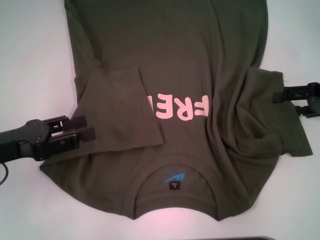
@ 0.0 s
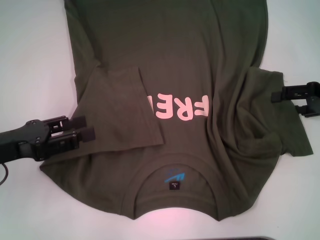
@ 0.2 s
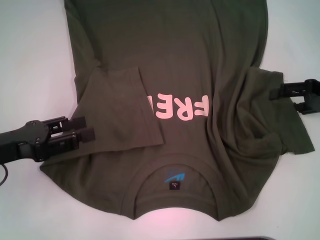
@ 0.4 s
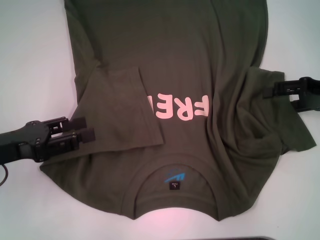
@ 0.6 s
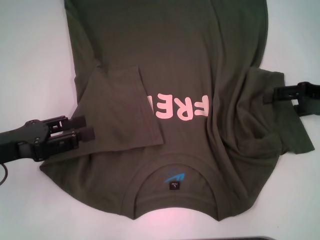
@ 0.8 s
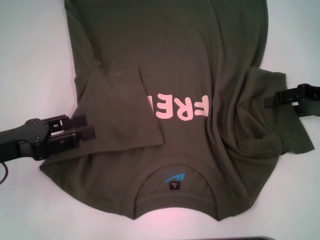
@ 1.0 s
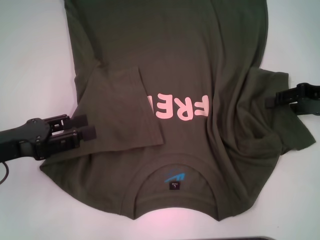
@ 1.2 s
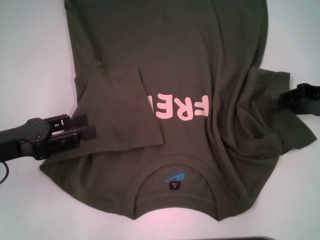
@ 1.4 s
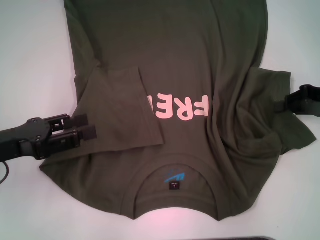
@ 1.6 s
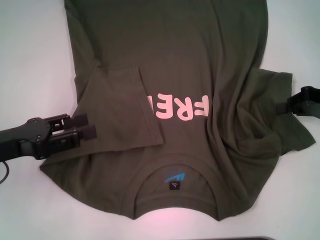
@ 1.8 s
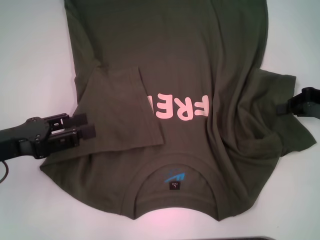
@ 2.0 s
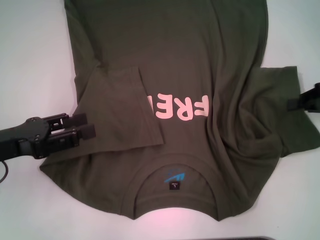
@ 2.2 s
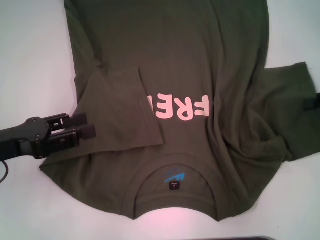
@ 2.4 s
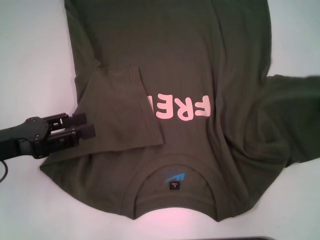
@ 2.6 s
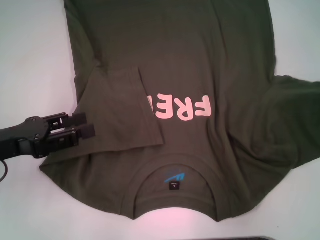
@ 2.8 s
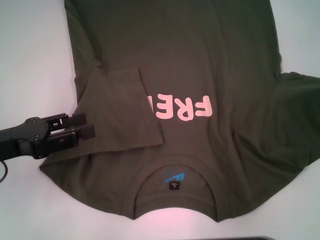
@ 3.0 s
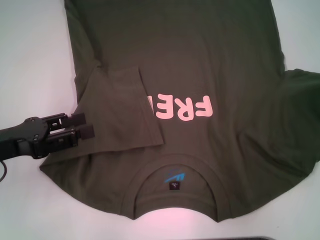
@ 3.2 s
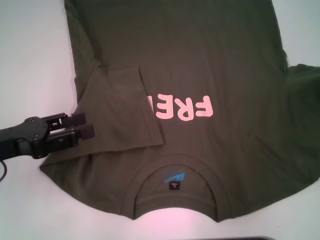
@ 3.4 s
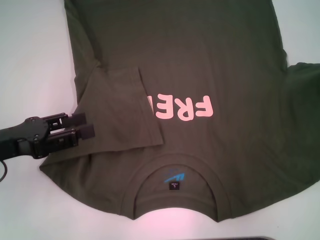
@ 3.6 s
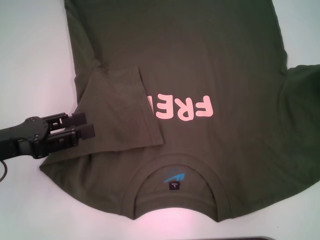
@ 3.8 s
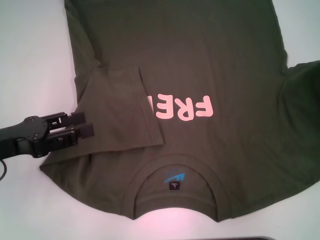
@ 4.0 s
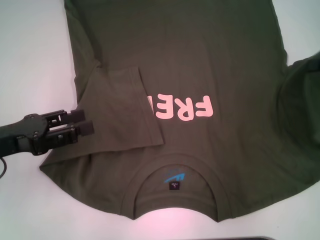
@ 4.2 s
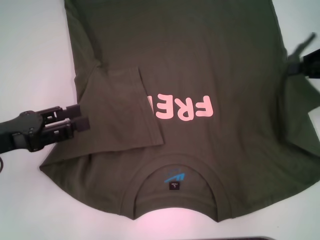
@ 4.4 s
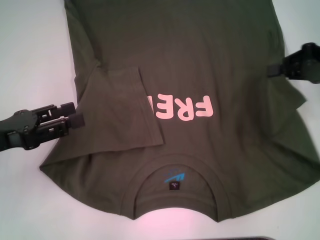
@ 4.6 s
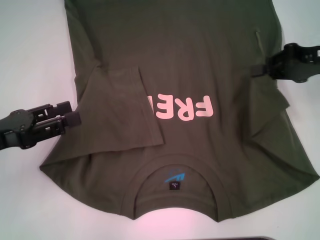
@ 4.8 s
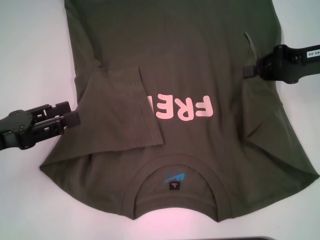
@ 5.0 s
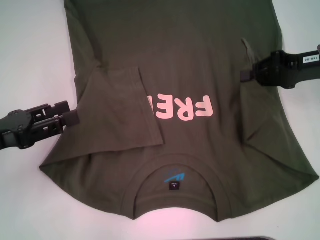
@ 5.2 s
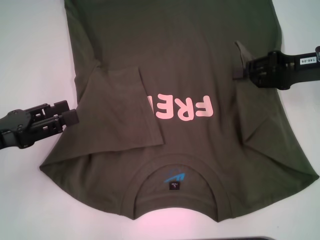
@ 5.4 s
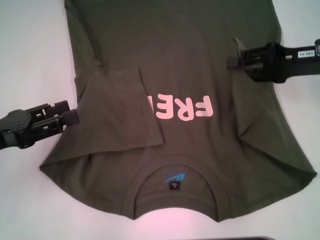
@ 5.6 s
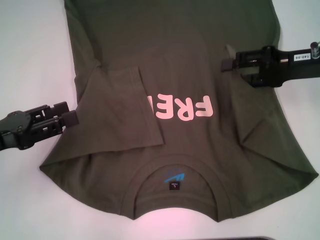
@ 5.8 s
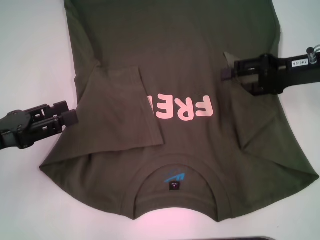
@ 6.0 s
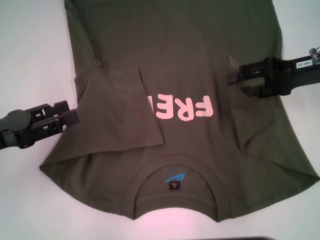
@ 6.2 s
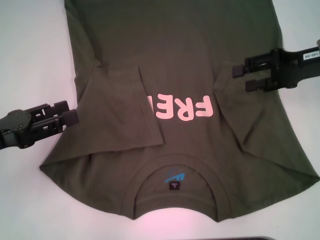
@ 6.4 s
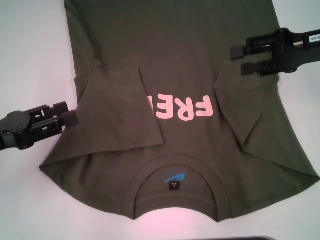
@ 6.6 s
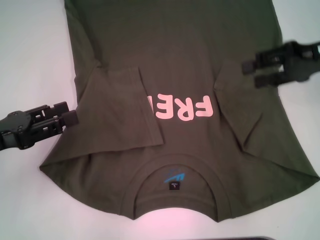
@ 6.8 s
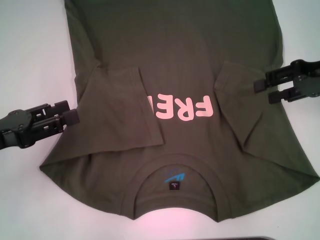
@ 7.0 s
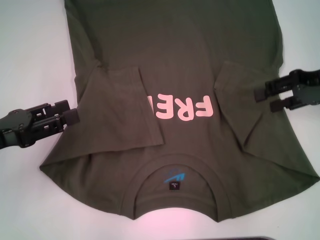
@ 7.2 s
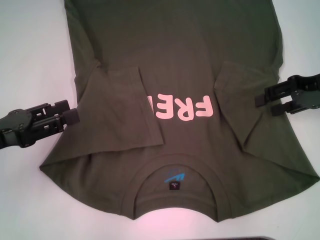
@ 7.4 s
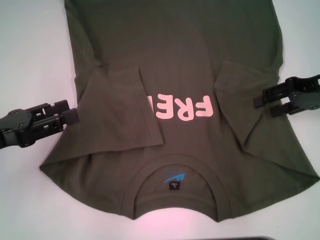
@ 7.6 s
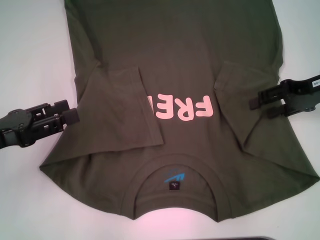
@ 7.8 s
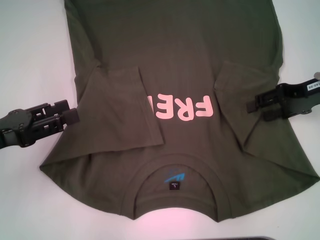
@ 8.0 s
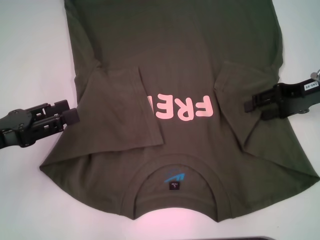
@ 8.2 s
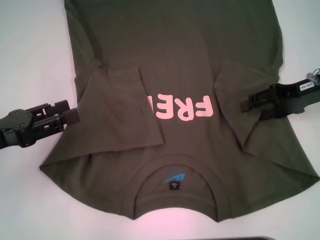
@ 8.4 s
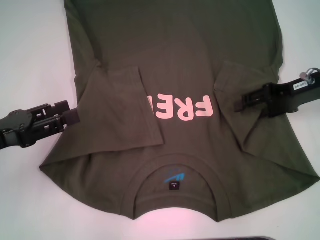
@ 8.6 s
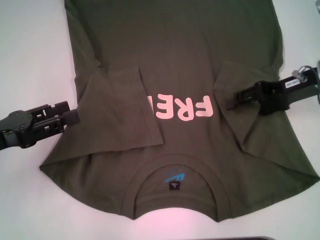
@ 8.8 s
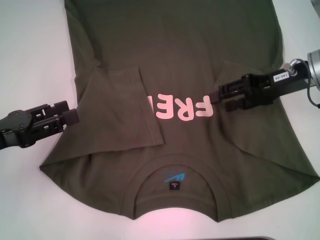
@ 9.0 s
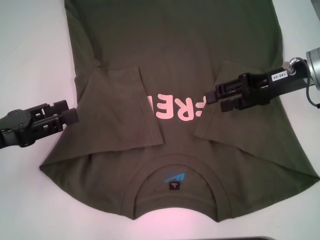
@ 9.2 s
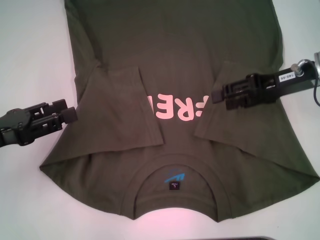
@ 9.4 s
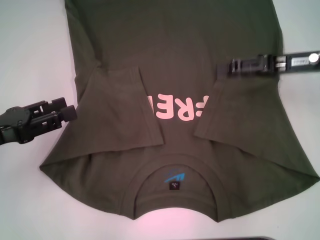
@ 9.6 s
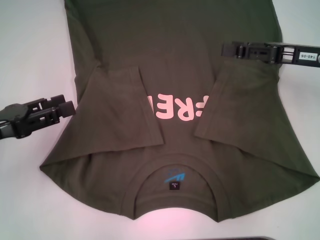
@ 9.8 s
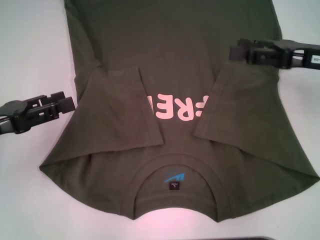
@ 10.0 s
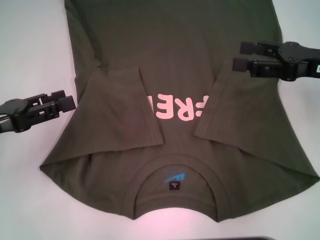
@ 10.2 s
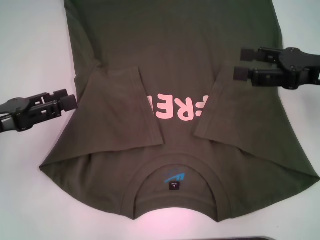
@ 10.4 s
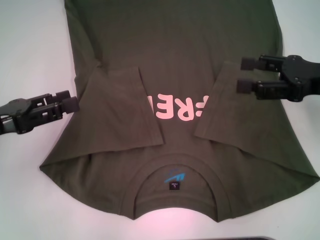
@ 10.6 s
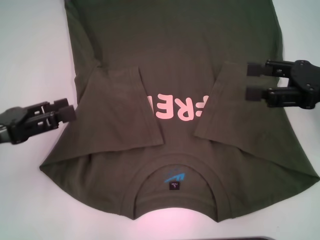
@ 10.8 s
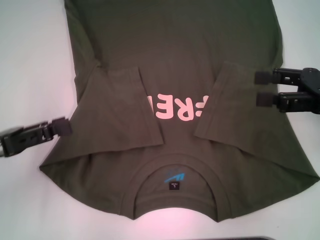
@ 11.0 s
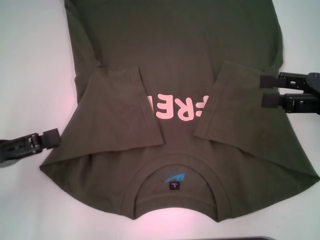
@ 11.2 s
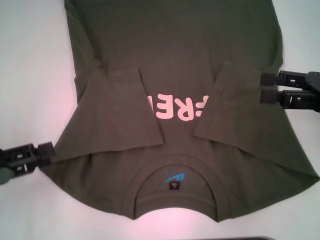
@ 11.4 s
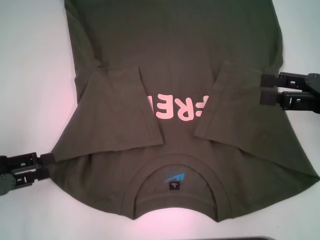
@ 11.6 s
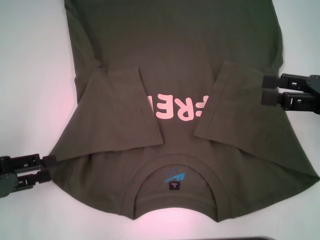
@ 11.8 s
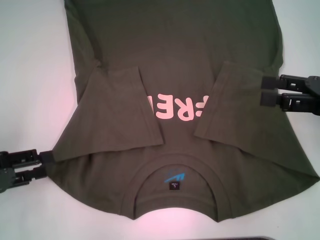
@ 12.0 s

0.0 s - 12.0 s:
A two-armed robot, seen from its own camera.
Step, 0.0 s - 9.4 s: Fold the bottom right sleeve with your right hand.
0.0 s - 1.6 s: The right gripper closes up.
1.6 s - 3.0 s: The right gripper goes approximately 10 cm to the right.
3.0 s - 4.4 s: The right gripper travels to the left by approximately 5 cm.
4.4 s - 6.0 s: The right gripper heads to the left, covering roughly 5 cm, and opens up.
6.0 s - 7.6 s: There are only small adjustments of the grippers.
7.6 s - 9.0 s: The right gripper moves to the left, approximately 5 cm.
9.0 s - 10.4 s: The right gripper is displaced backward by approximately 5 cm.
10.4 s - 12.0 s: The left gripper ends up about 5 cm from where it was.

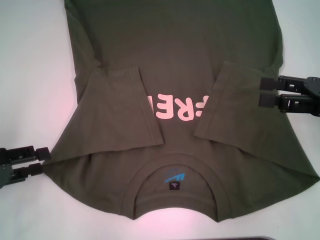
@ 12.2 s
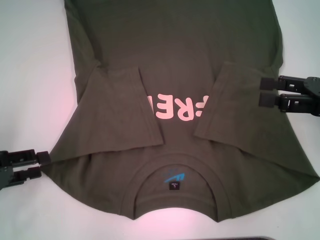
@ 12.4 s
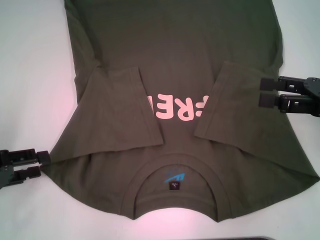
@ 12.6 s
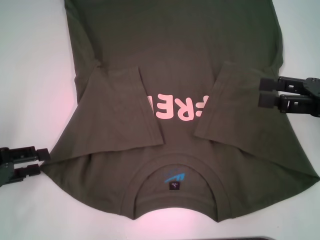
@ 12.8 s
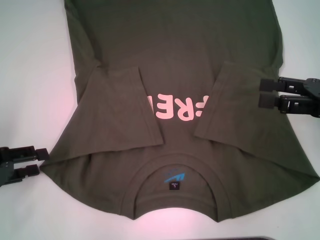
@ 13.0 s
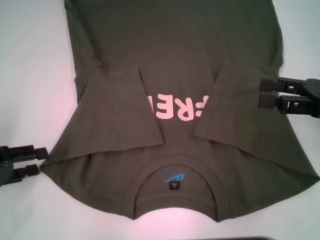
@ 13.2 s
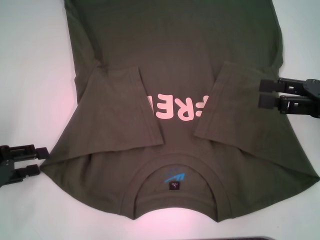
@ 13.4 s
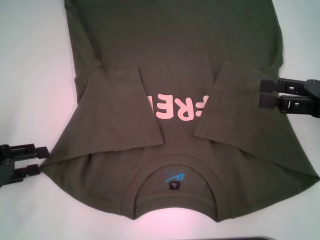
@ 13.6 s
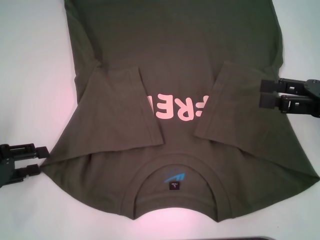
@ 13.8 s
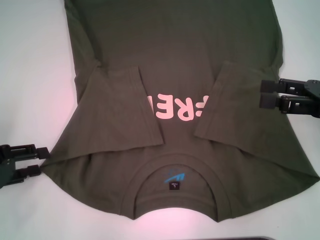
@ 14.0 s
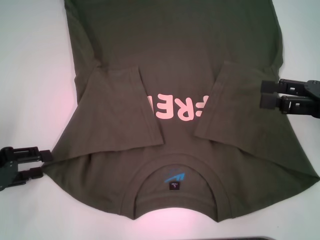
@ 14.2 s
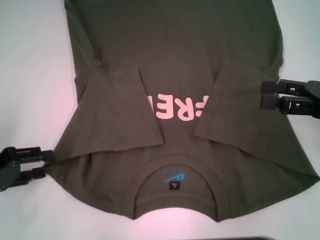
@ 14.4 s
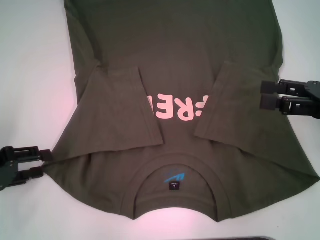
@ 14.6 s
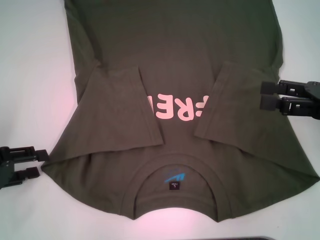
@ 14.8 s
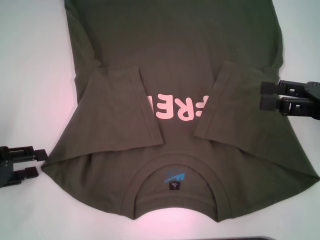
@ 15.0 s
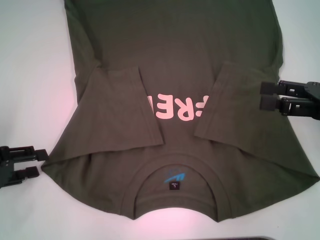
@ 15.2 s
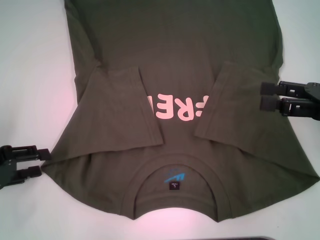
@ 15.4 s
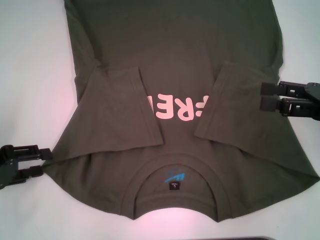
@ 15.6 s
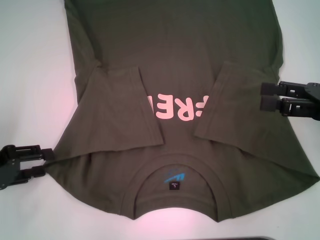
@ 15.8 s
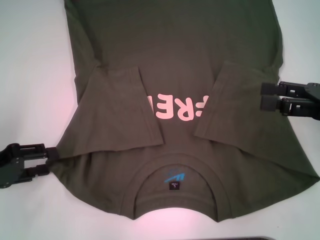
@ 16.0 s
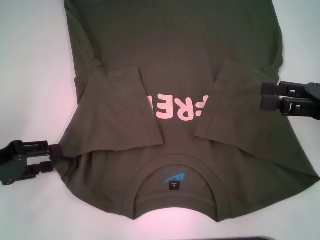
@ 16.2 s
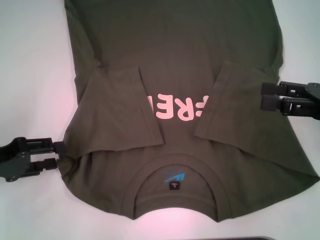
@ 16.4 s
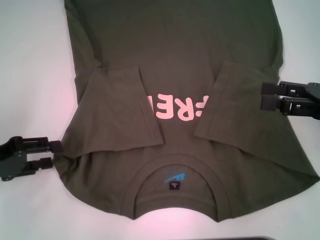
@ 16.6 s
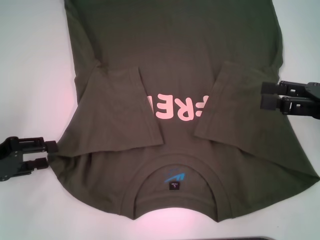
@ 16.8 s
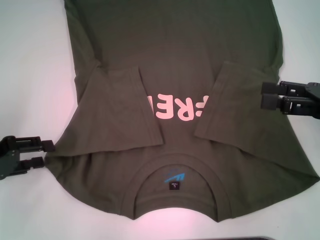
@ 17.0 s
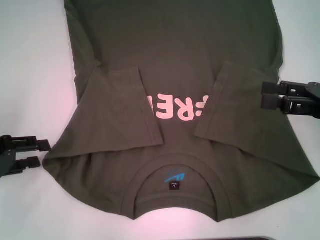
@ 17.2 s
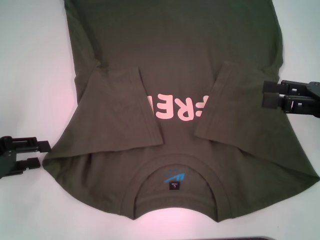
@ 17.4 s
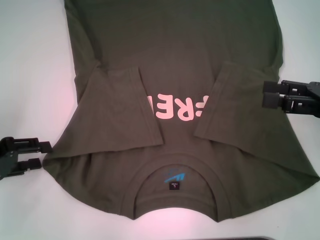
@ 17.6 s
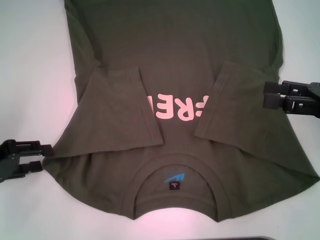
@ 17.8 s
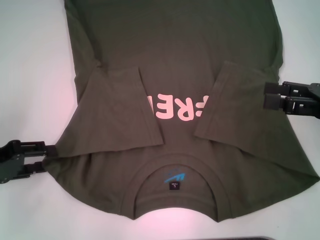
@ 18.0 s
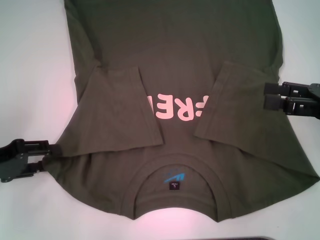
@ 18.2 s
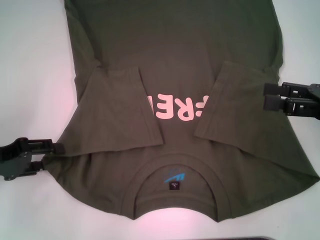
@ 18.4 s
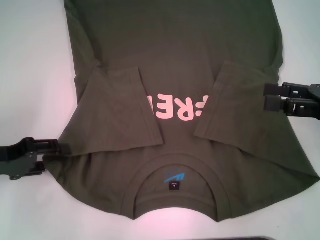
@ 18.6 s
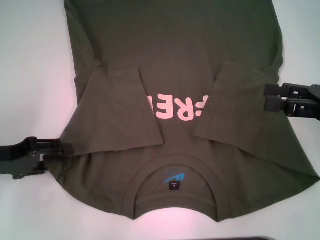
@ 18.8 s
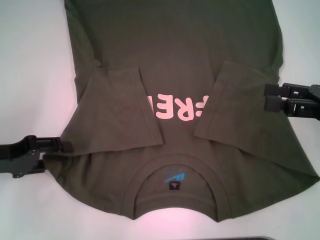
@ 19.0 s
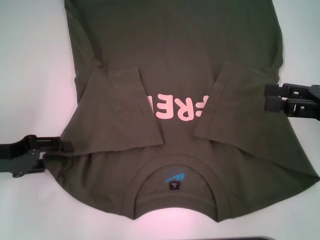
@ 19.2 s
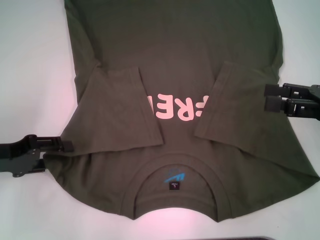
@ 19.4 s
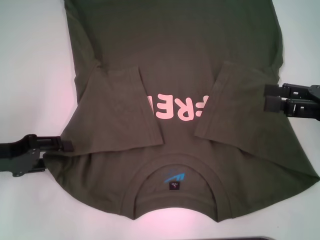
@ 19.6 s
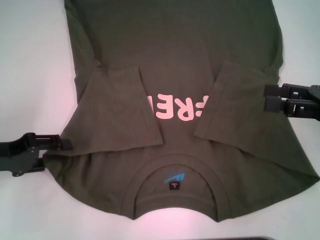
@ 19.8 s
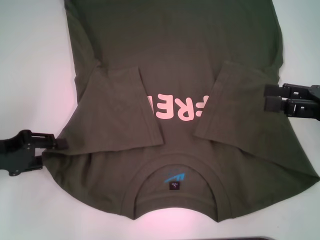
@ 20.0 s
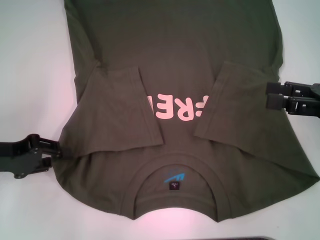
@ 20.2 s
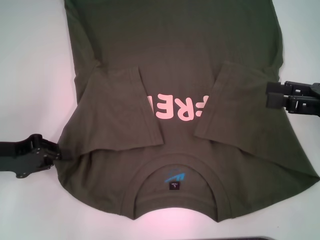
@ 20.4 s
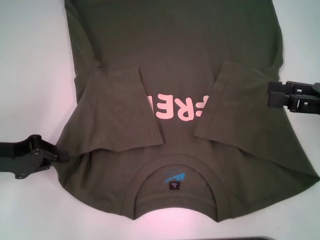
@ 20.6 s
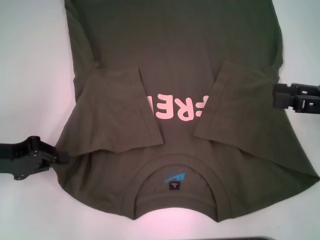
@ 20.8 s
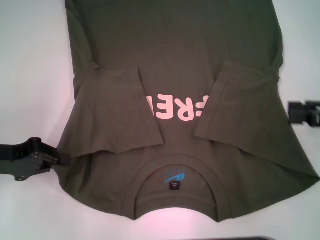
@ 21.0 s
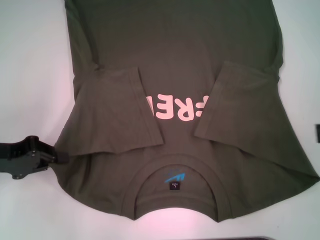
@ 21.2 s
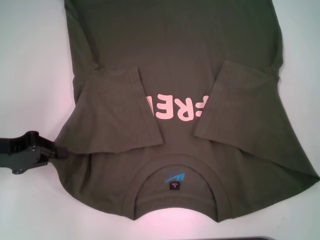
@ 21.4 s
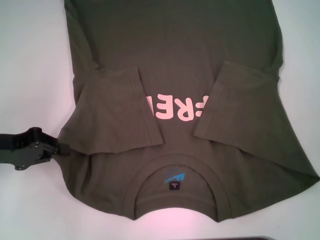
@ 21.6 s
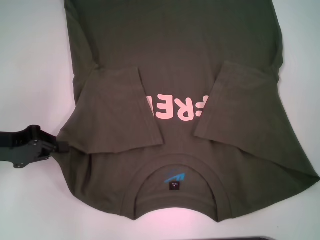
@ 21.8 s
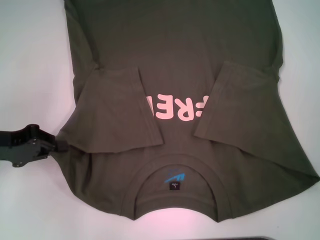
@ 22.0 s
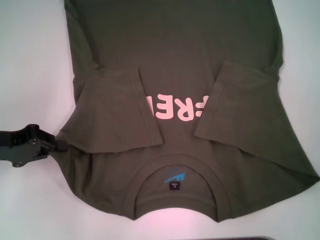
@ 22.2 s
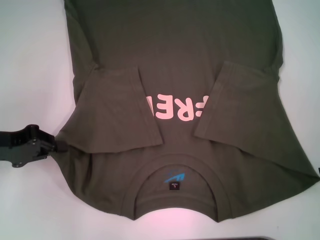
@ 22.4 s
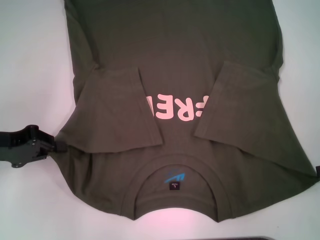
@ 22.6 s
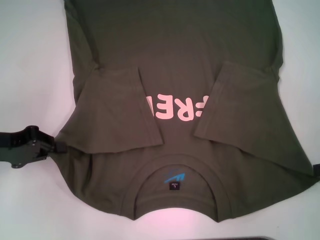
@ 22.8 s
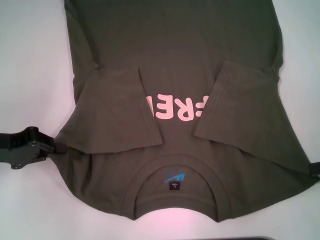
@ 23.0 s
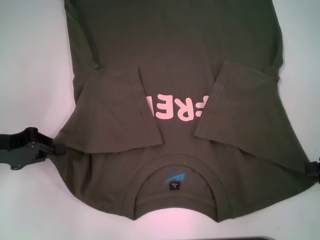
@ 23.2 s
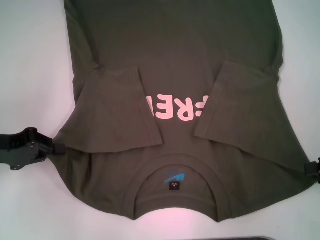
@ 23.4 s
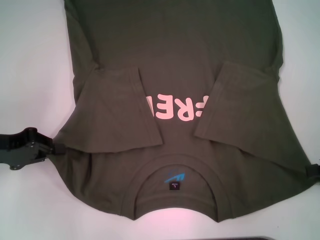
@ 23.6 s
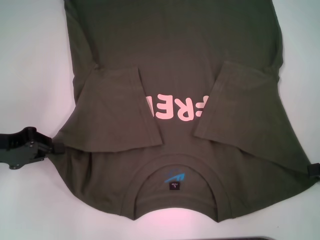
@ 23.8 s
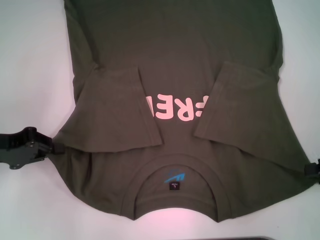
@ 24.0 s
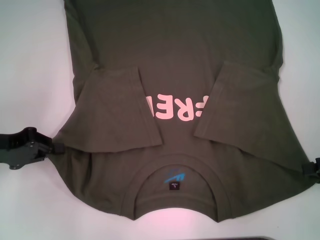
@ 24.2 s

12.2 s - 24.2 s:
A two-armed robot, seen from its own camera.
Step, 12.2 s - 21.0 s: Grab the bottom left corner with your left hand.
12.2 s - 13.8 s: The grippers make only small movements.
13.8 s - 15.2 s: Neither gripper changes place.
15.2 s - 19.8 s: The grippers move only a little.
19.8 s - 21.2 s: The left gripper closes its fingers. The right gripper travels to the right by approximately 5 cm.
22.6 s - 24.2 s: The grippers move only a little.
